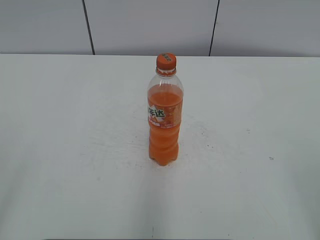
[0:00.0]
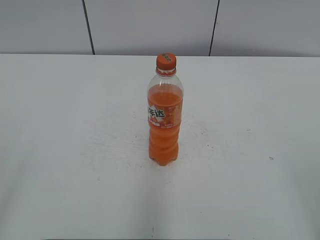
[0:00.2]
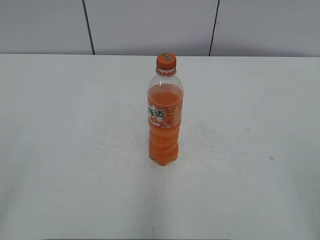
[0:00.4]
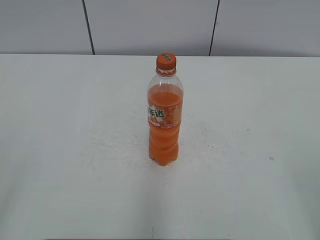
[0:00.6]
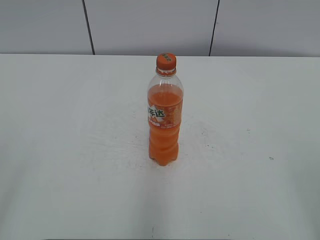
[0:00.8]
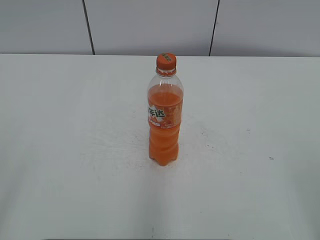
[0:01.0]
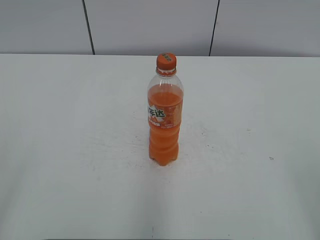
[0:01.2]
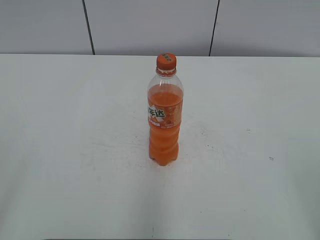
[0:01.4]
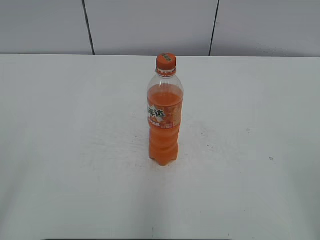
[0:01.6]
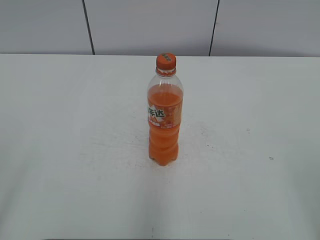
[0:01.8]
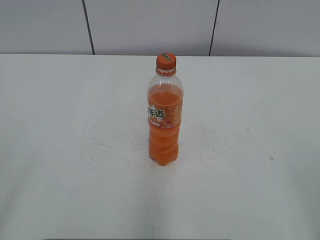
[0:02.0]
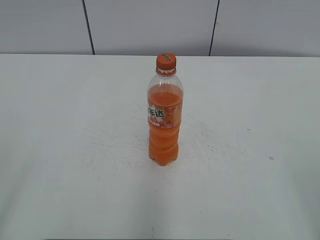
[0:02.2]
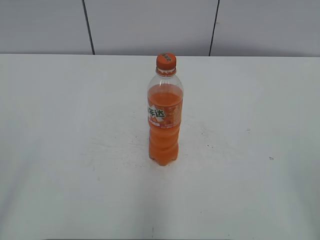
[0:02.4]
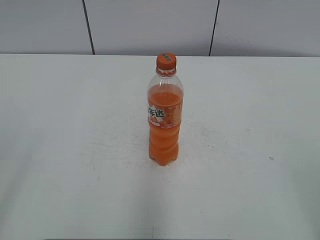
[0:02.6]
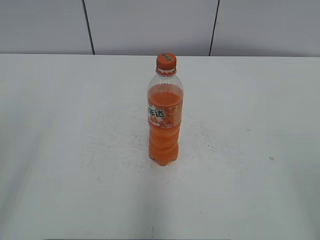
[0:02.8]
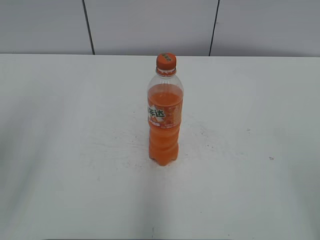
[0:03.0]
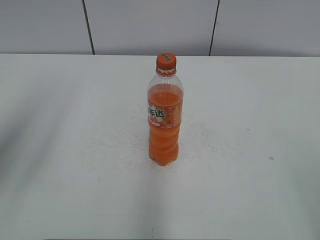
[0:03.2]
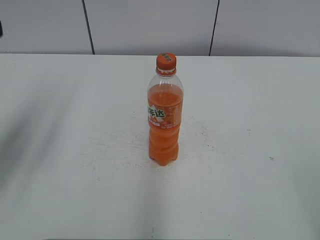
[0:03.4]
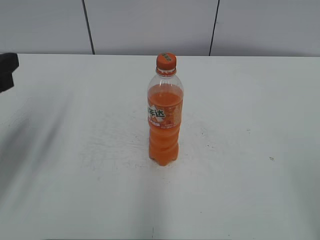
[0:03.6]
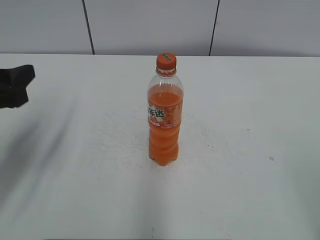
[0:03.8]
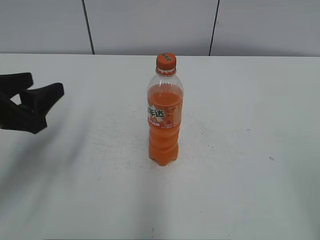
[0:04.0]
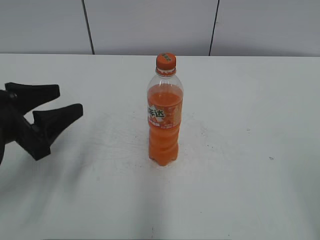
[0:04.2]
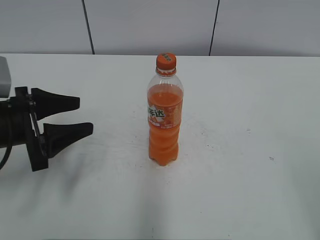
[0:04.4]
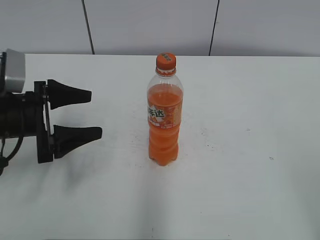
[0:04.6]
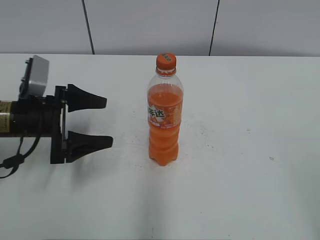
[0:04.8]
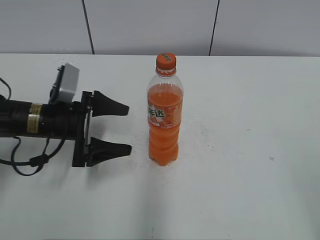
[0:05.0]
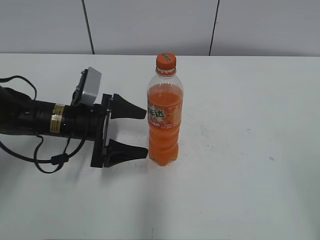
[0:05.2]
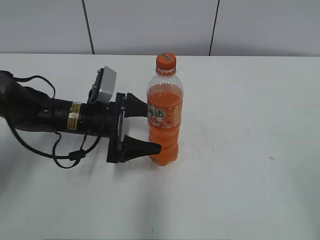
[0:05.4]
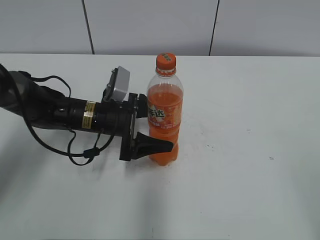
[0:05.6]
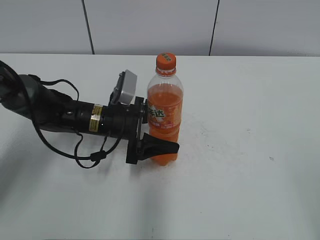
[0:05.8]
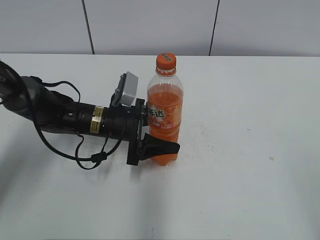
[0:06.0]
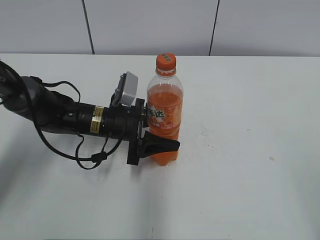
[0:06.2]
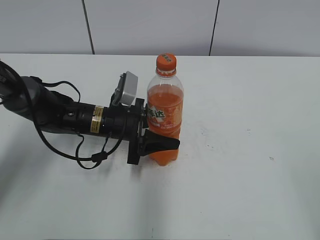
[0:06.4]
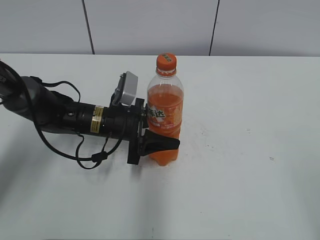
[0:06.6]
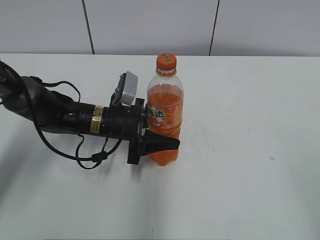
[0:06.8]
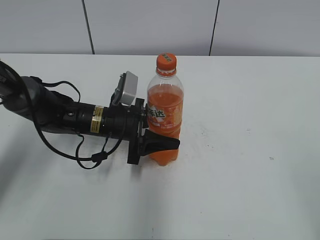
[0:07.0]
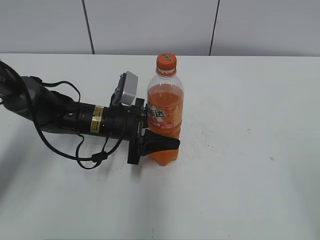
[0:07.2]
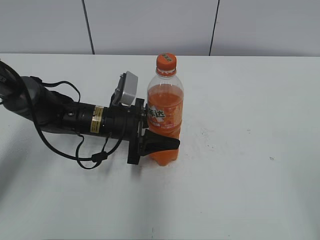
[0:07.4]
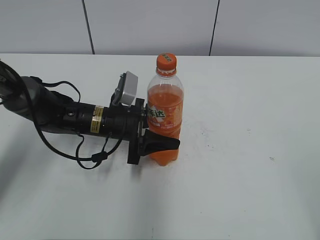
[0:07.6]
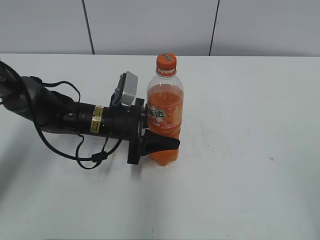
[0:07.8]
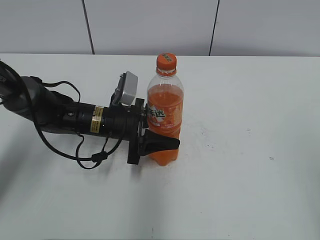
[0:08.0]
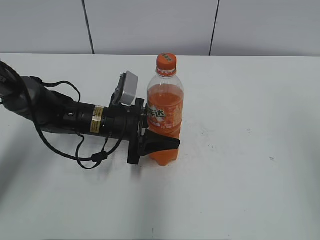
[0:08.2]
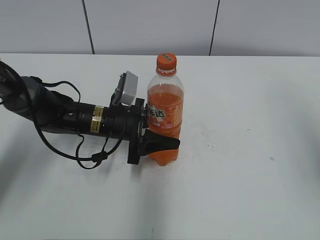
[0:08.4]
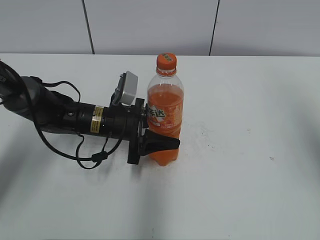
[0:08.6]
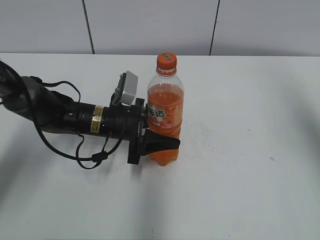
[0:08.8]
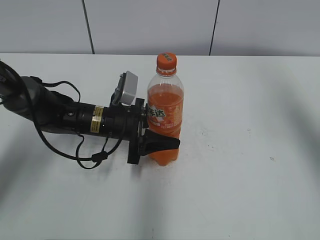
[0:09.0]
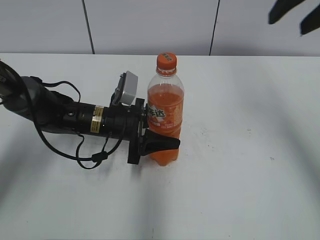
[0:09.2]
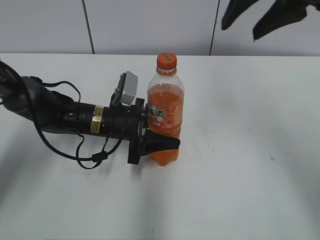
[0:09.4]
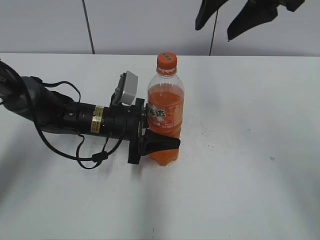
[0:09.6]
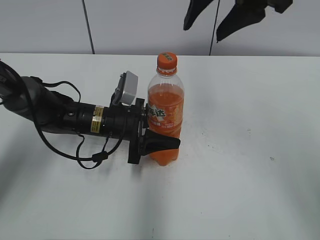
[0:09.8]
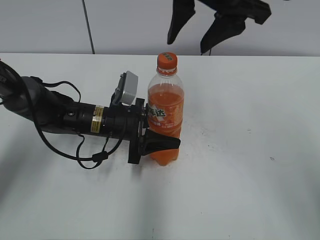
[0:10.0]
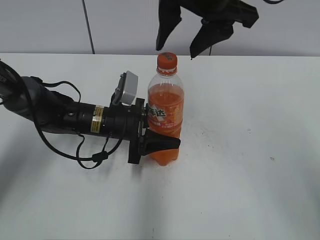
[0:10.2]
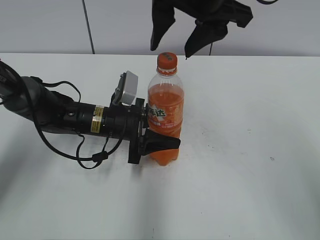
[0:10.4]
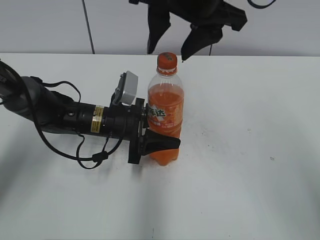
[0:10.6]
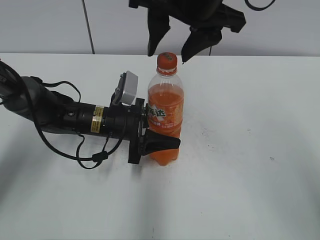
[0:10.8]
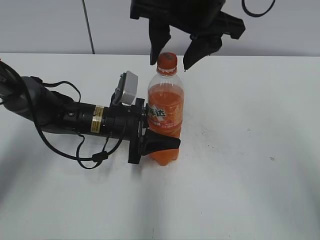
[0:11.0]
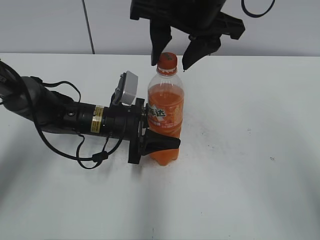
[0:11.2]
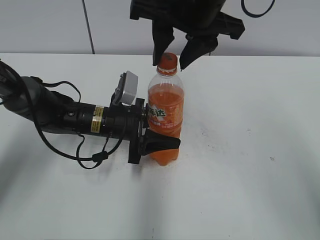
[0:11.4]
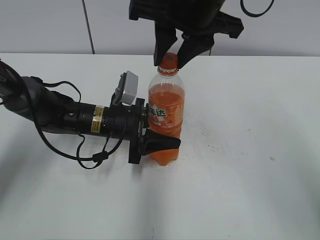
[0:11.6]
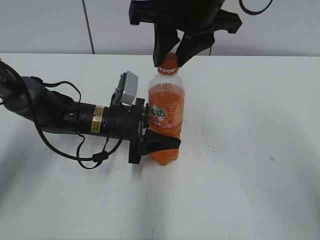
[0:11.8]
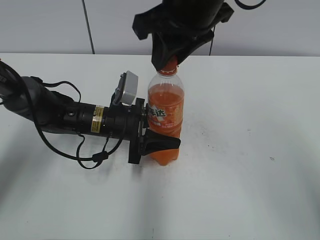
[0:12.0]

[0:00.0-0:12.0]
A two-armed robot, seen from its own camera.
Step, 0:00.0 to 0:07.2: Grab the Mirinda with the left hand.
0:03.0 to 0:04.4: The left gripper heads downward and forward, covering some 25 cm.
0:04.4 to 0:06.0: The left gripper is displaced to the right, forward and downward by about 20 cm, and opens, then closes again.
0:06.0 to 0:07.6: The left gripper closes up.
0:07.6 to 0:09.0: The right gripper heads forward and upward, covering about 30 cm.
0:09.0 to 0:10.4: The right gripper travels to the left by approximately 20 cm.
0:10.4 to 0:12.0: The right gripper closes up.

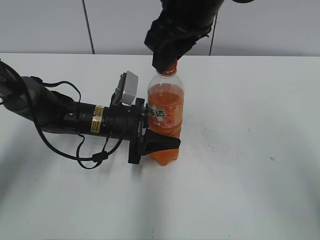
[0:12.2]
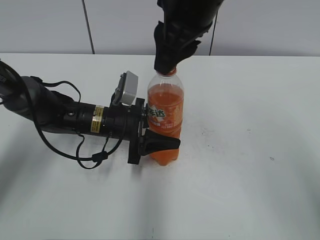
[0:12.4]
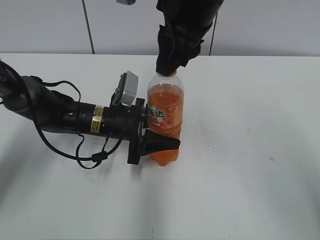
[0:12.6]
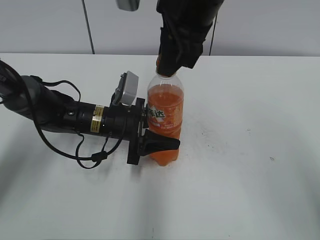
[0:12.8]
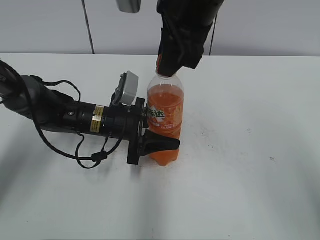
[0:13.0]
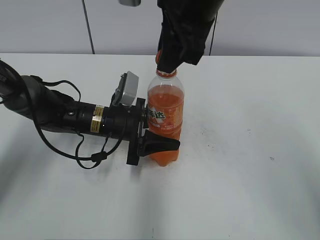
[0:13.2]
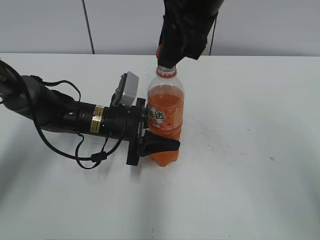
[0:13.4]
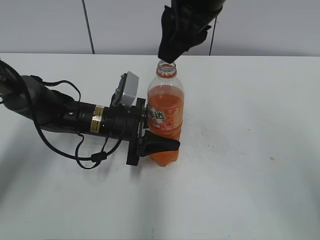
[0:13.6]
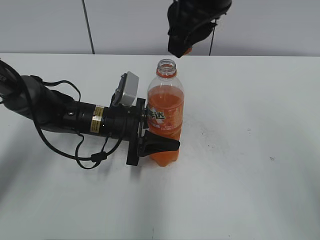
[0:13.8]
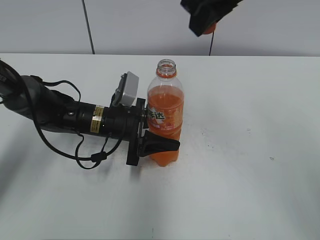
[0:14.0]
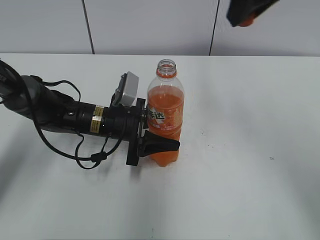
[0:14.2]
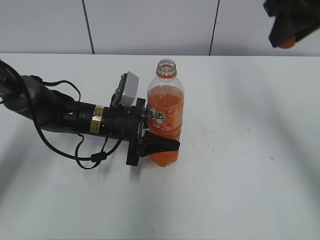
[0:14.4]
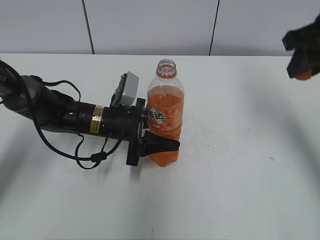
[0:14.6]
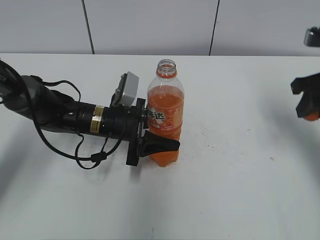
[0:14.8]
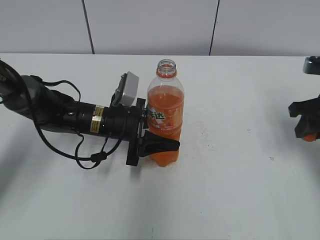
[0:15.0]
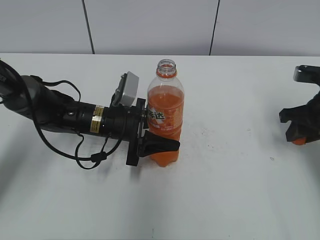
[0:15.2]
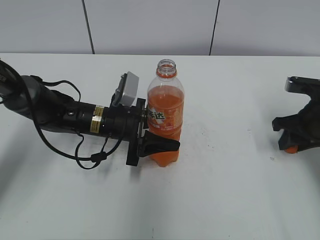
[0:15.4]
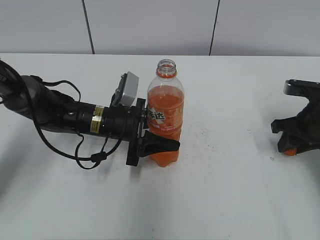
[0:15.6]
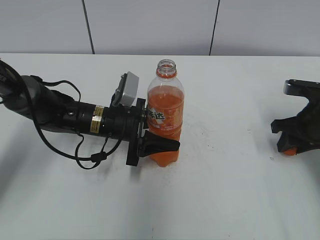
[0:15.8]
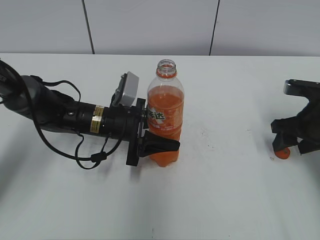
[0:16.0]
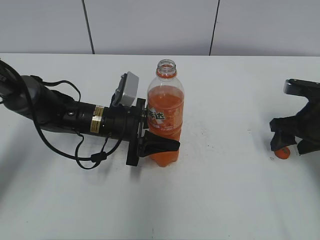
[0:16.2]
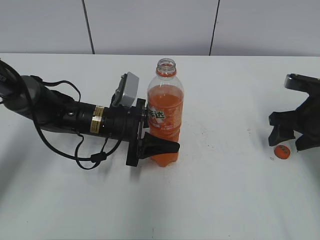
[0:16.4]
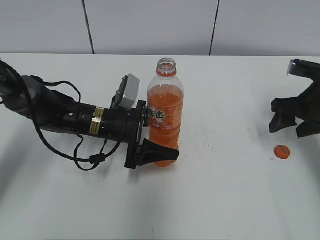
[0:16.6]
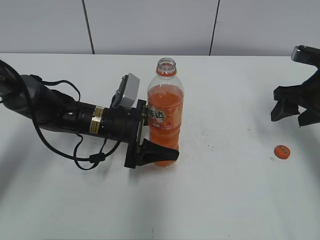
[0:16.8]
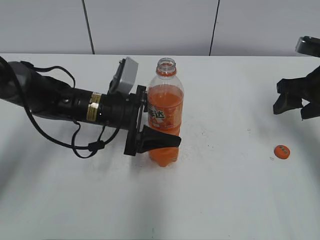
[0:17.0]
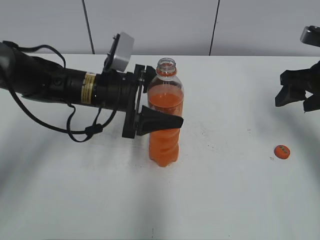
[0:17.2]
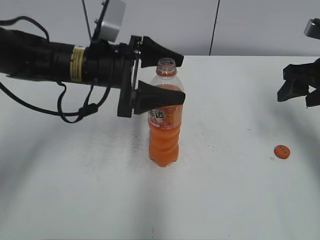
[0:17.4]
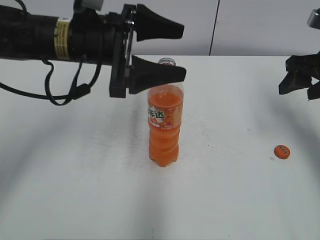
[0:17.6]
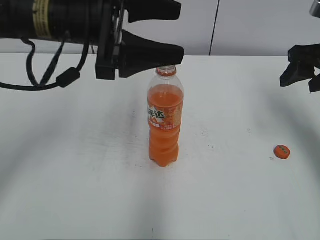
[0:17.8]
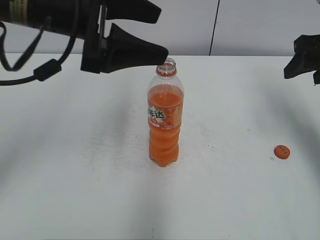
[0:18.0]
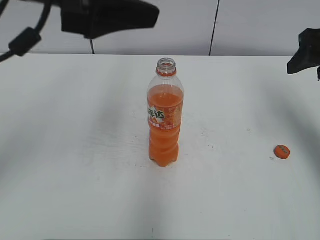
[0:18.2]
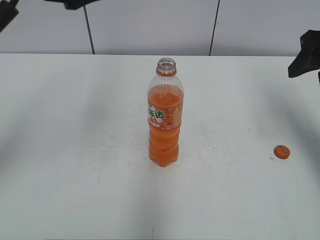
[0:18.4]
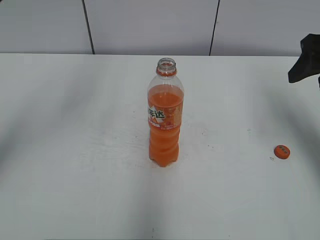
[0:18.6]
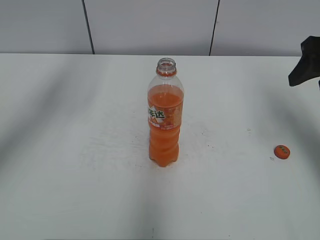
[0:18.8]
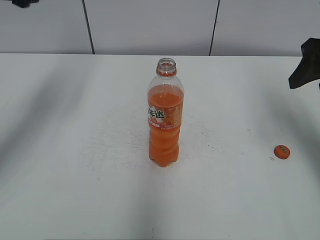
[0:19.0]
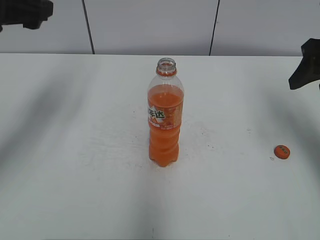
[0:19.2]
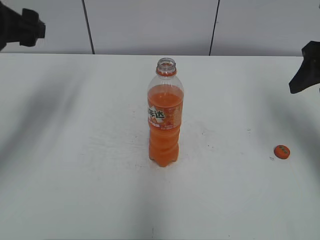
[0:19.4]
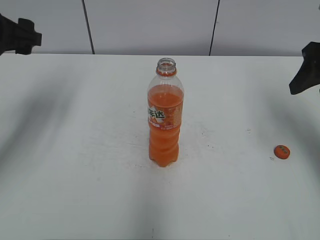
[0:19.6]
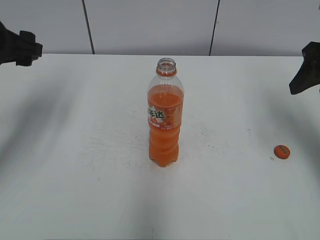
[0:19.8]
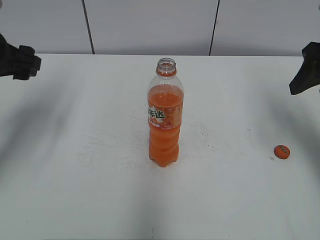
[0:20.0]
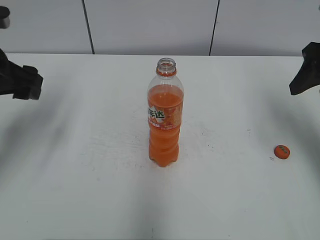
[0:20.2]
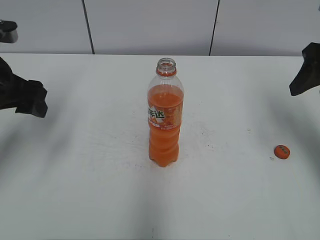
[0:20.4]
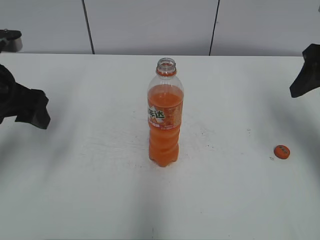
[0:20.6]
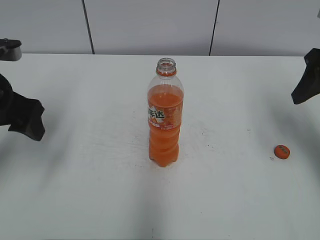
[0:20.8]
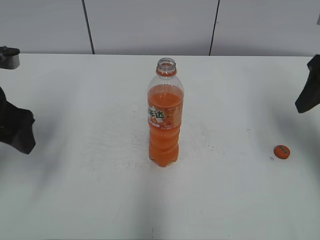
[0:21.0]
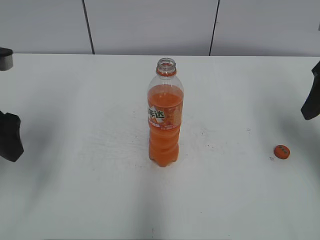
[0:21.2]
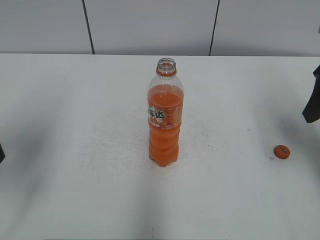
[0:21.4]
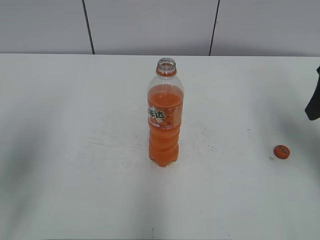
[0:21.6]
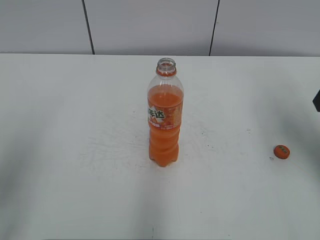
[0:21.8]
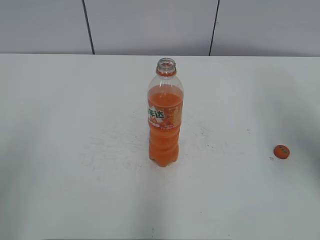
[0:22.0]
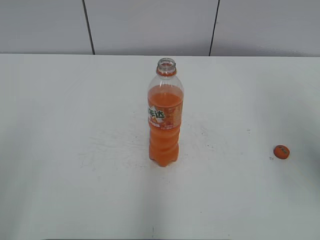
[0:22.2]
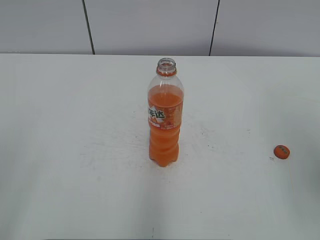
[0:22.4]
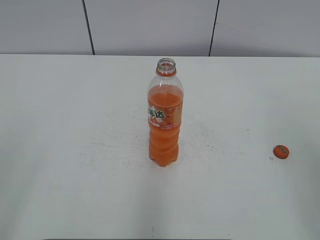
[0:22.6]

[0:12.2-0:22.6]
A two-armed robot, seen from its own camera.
Step, 0:13.8 to 0:15.8: Place the bottle cap on the right.
0:13.6 to 0:15.2: The right gripper moves to the right and downward, some 30 cm.
0:15.2 to 0:16.6: The left gripper opens up. The right gripper opens its fingers.
0:16.6 to 0:18.2: The left gripper travels upward by about 30 cm. Meanwhile the right gripper moves upward, about 15 cm.
0:18.2 to 0:19.6: The left gripper is displaced to the left, downward and forward by approximately 15 cm.
0:19.6 to 0:21.2: The left gripper heads backward, covering approximately 10 cm.
0:21.2 to 0:22.6: Both grippers move backward, about 20 cm.
